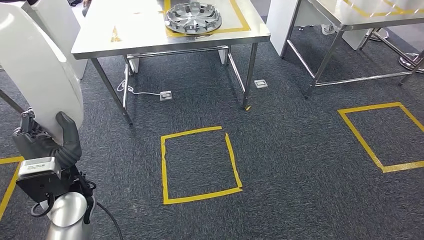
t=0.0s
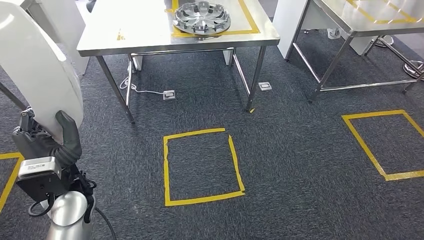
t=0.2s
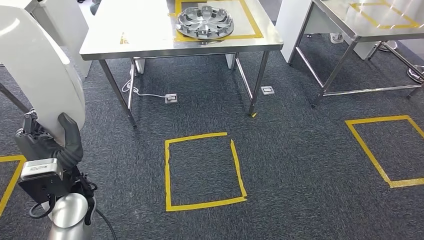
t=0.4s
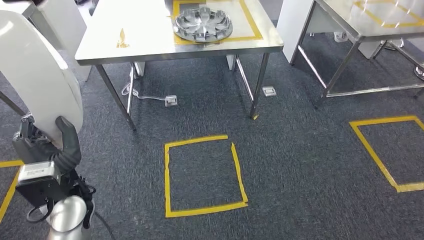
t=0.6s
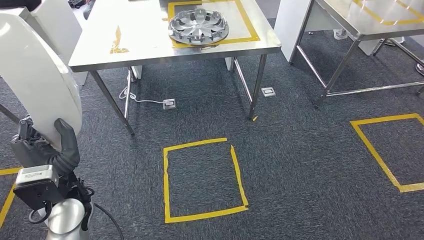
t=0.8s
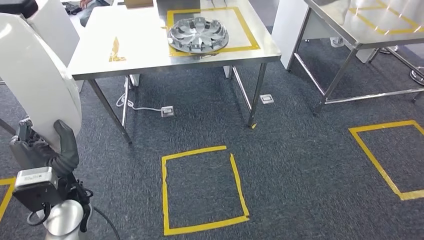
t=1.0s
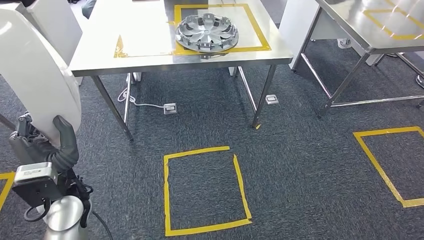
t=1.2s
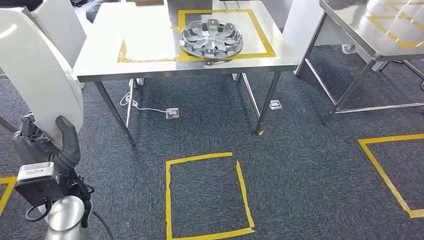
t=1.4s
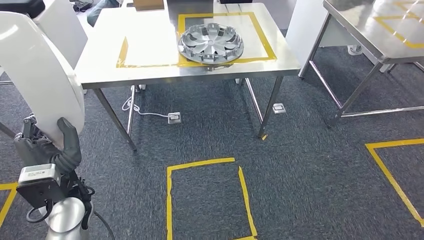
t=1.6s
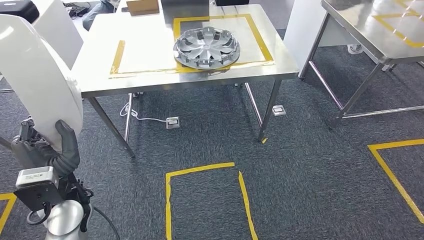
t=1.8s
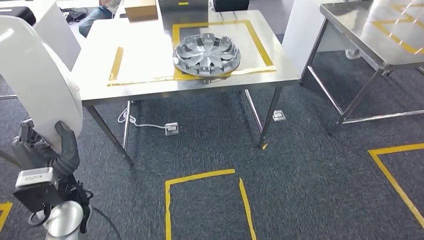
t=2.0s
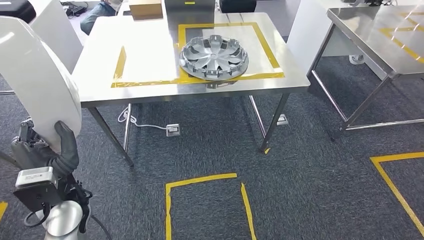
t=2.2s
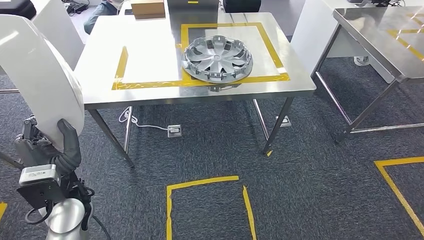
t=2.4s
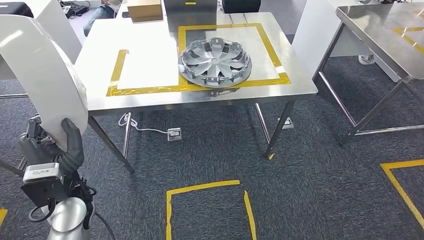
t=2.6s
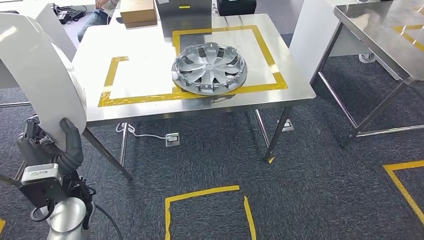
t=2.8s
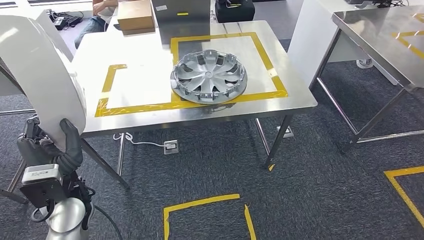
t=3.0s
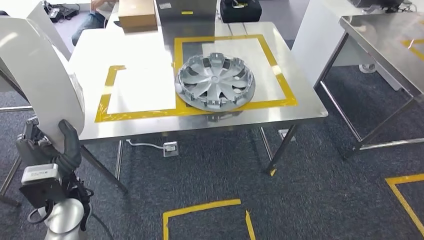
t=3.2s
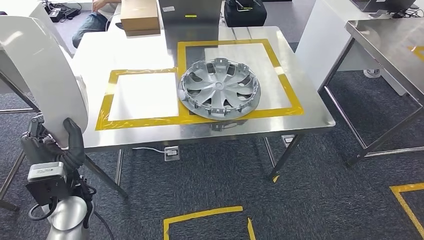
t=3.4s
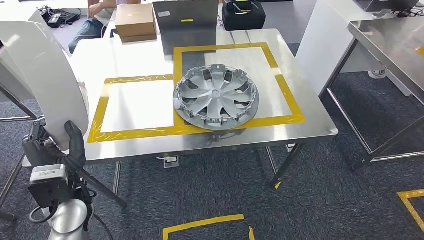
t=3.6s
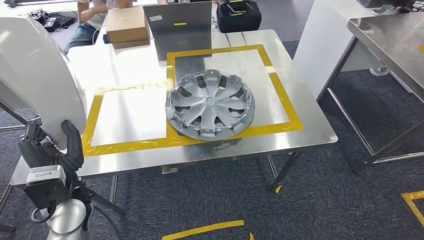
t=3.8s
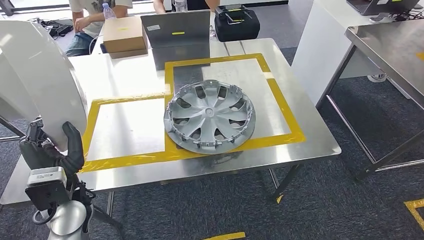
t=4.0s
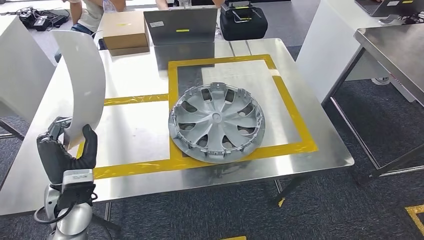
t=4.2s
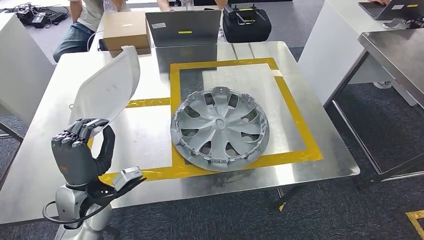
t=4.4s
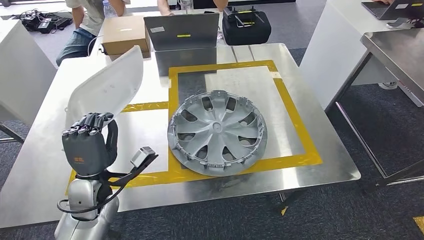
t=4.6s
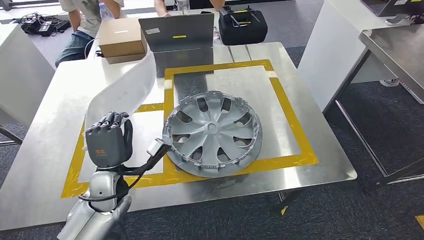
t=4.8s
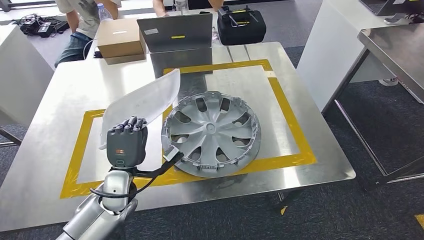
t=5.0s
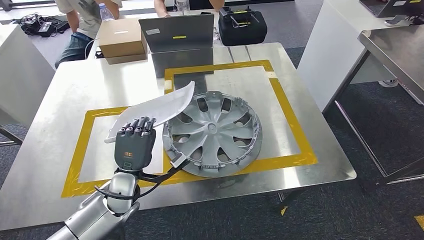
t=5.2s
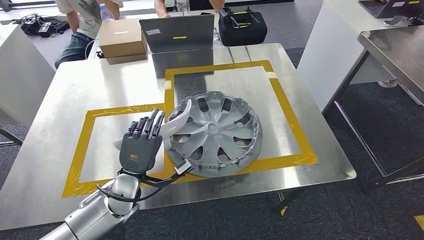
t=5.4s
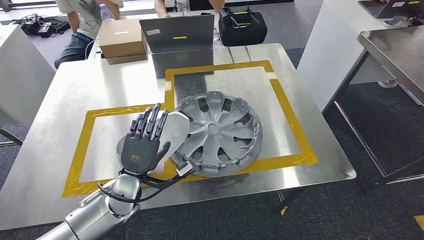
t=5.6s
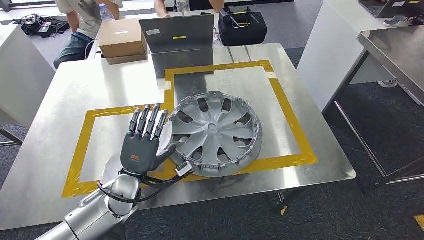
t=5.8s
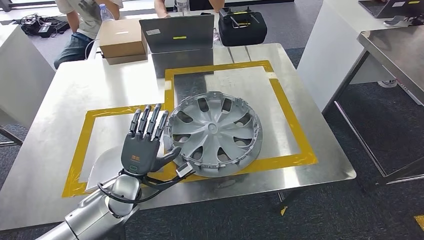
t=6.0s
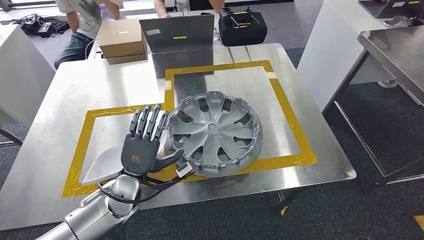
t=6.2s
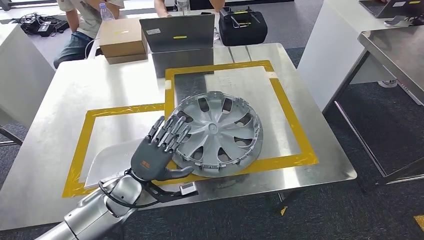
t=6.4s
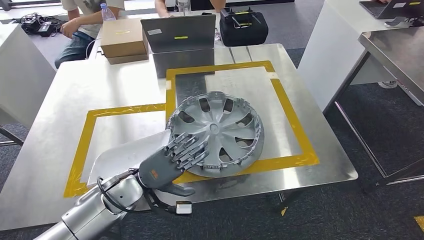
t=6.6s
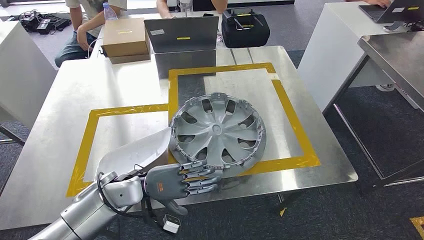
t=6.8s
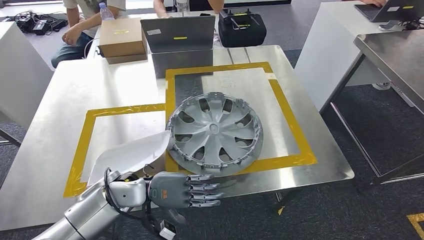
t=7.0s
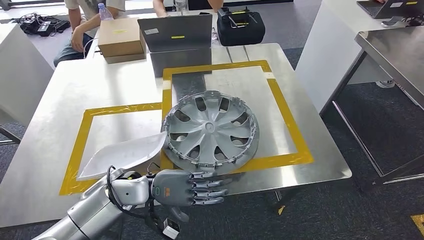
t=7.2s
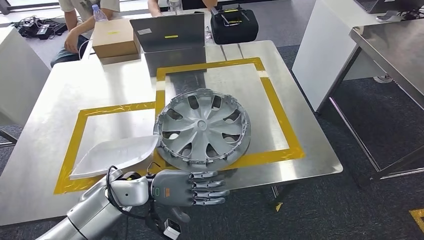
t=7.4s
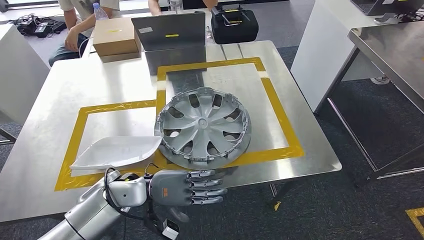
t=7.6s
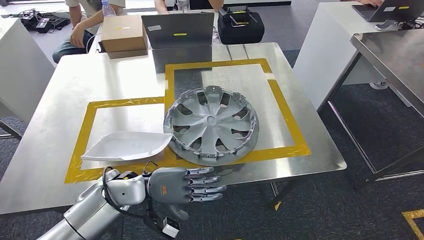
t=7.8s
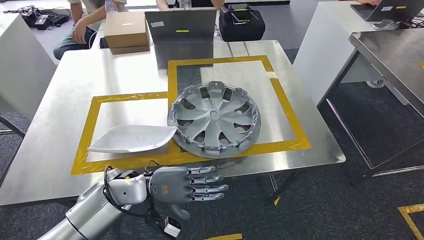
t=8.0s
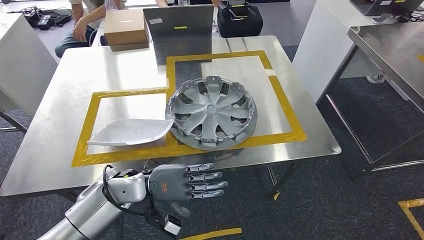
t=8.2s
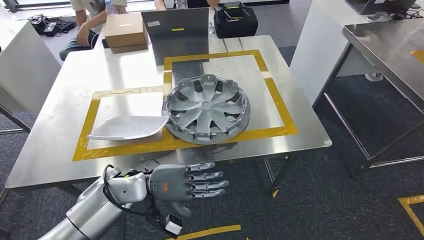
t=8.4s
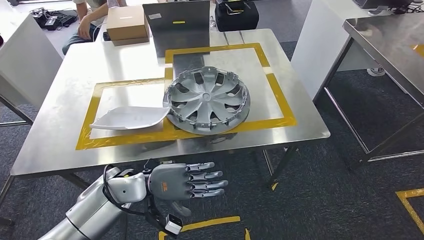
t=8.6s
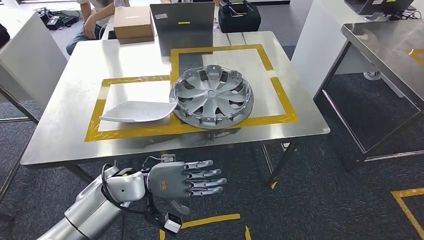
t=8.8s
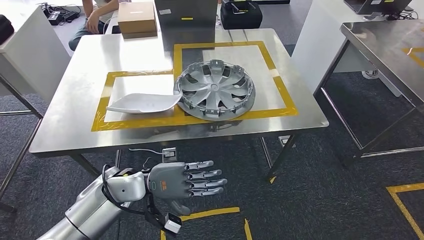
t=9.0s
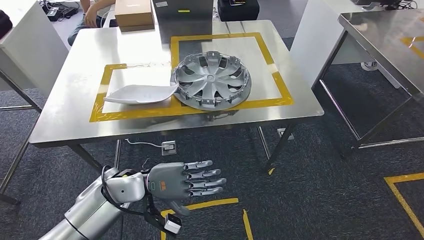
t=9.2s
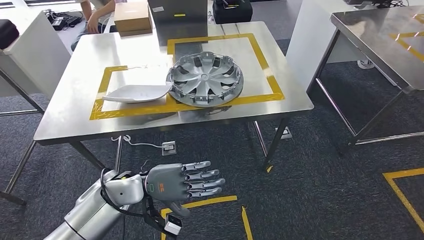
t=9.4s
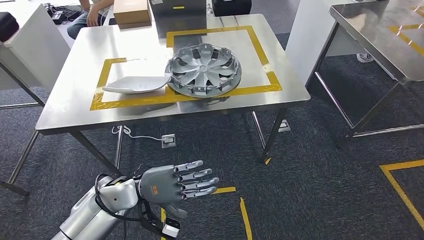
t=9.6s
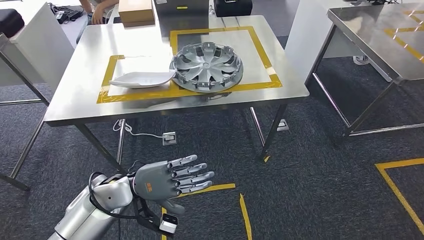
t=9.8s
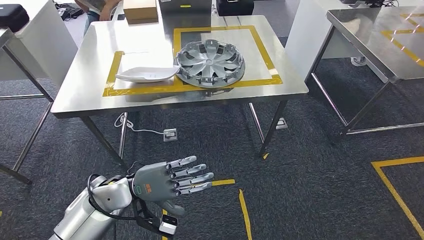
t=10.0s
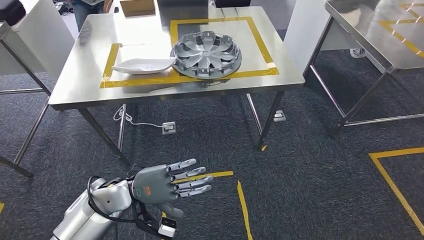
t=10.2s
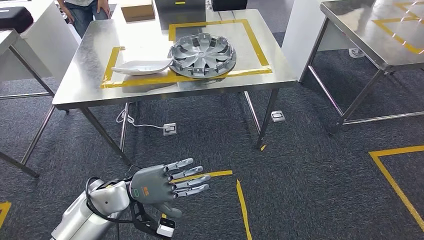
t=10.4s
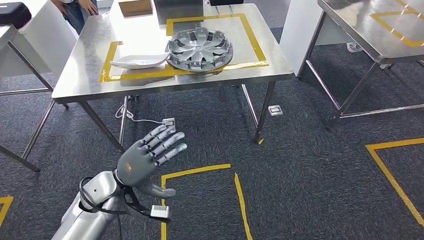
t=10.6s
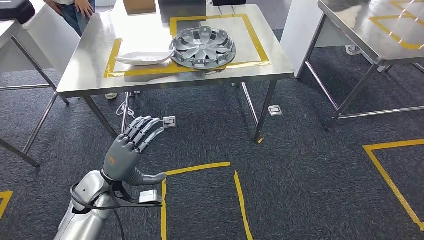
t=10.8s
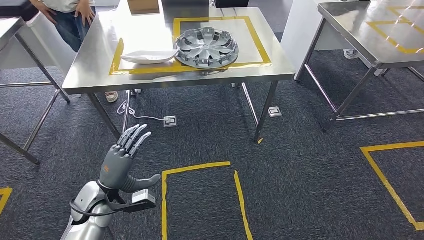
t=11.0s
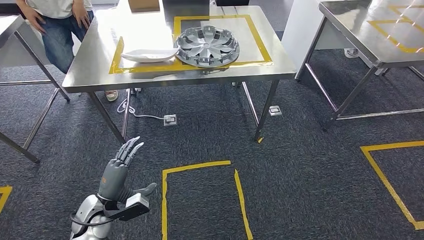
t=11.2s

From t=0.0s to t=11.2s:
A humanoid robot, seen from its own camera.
Step, from t=0.0s to t=4.0s: Bring the small component to the front of the workbench.
Step, from t=4.4s to t=6.8s: Insert the small component into the corresponding slot on the workbench.
Step, from t=7.0s to t=11.2s: Move to the initial position of the workbench.
